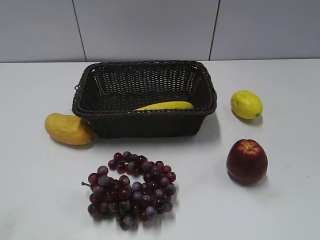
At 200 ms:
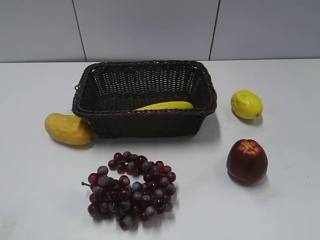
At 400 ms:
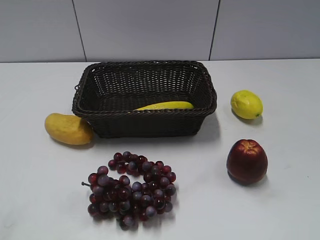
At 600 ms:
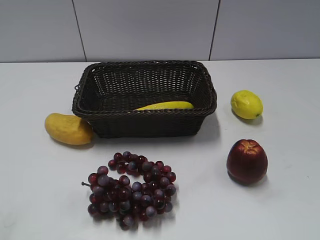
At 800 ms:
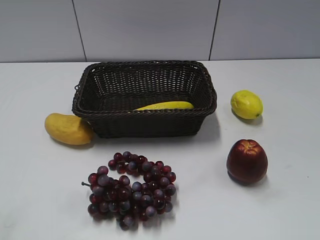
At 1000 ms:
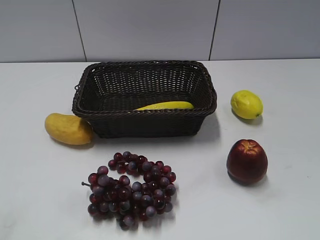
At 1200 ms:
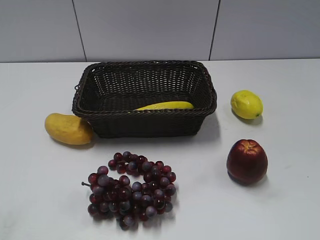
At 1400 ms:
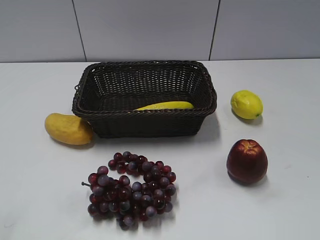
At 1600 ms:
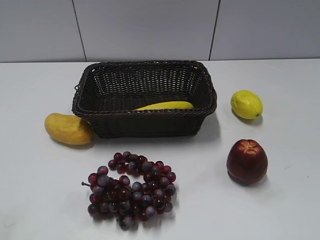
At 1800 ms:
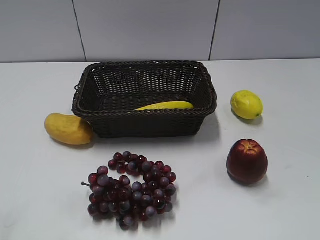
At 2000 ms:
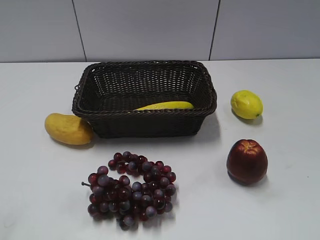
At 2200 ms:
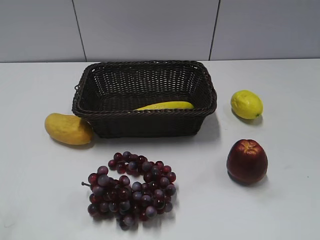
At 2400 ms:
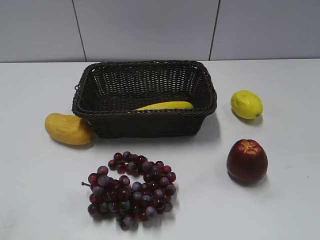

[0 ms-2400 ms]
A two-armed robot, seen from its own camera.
0 ms to 2400 ms: Both grippers stay about where they are.
